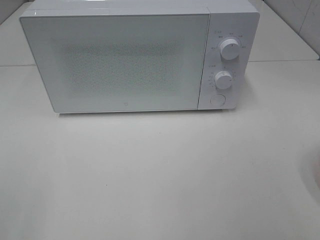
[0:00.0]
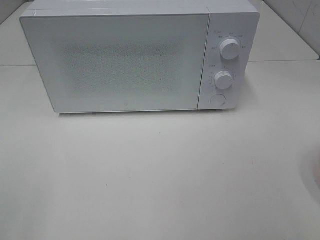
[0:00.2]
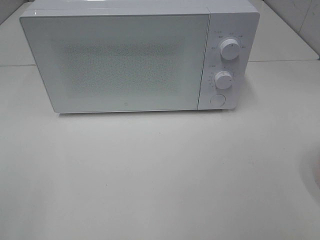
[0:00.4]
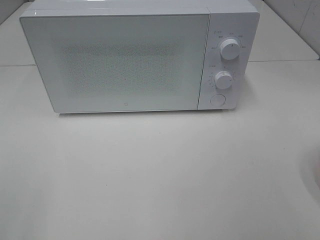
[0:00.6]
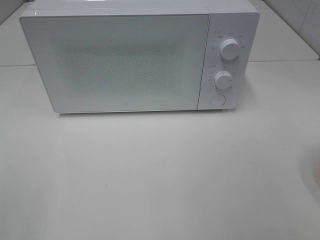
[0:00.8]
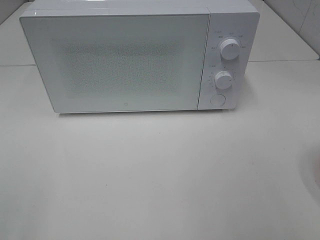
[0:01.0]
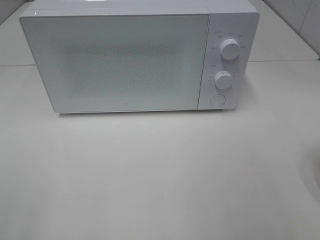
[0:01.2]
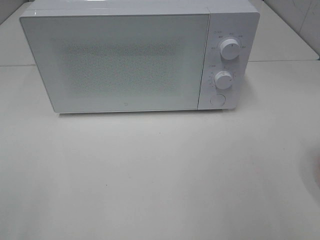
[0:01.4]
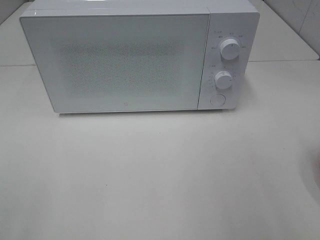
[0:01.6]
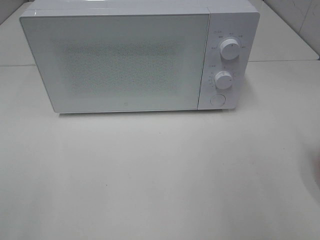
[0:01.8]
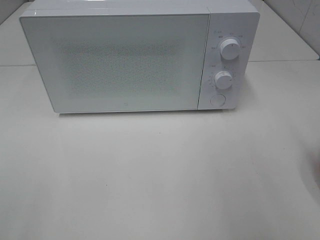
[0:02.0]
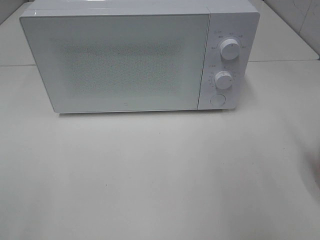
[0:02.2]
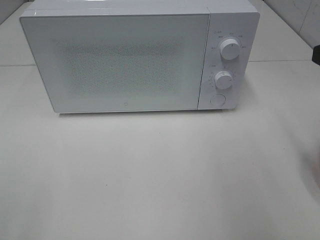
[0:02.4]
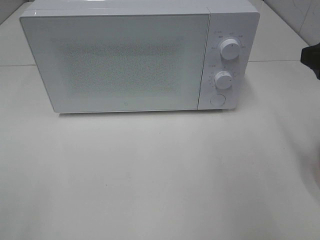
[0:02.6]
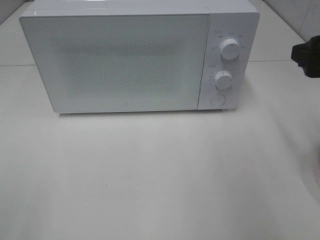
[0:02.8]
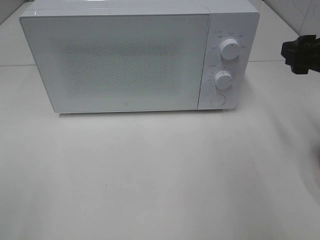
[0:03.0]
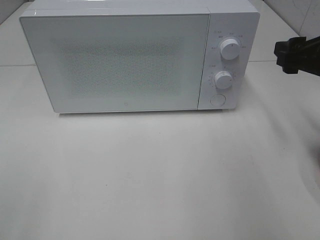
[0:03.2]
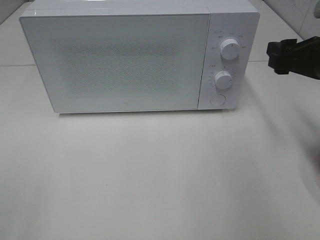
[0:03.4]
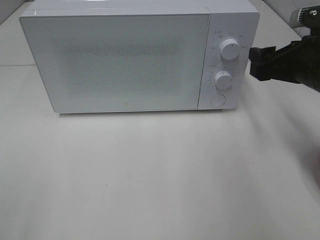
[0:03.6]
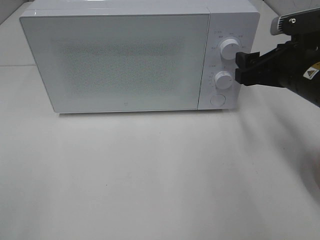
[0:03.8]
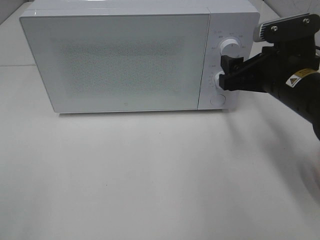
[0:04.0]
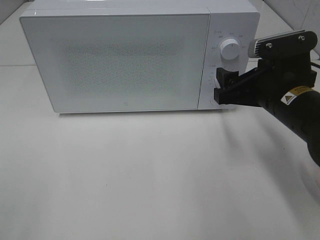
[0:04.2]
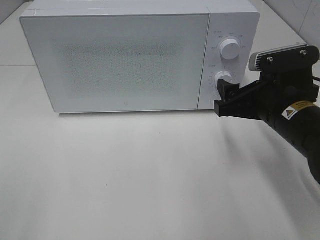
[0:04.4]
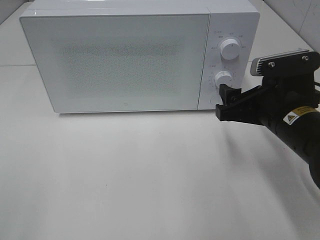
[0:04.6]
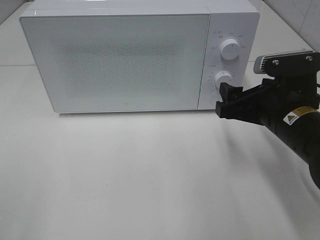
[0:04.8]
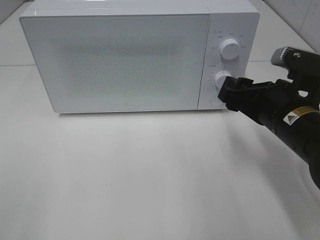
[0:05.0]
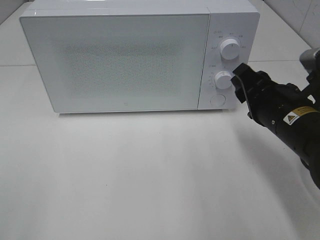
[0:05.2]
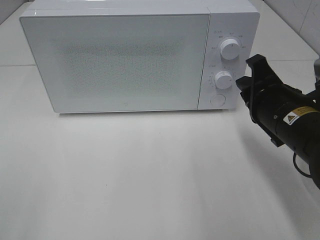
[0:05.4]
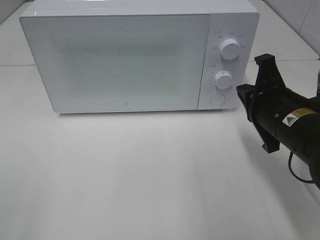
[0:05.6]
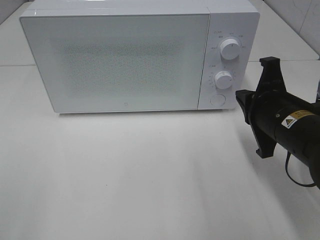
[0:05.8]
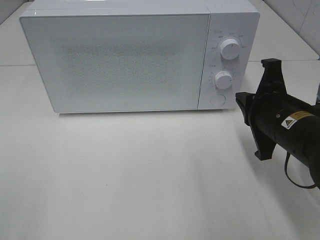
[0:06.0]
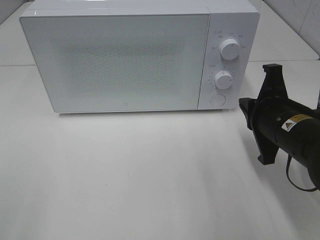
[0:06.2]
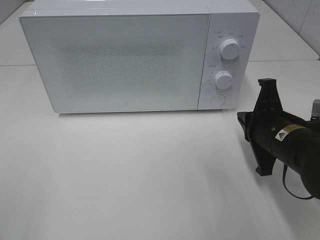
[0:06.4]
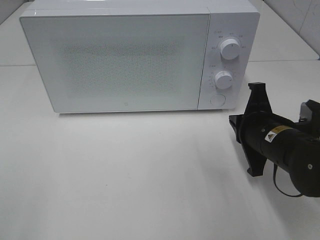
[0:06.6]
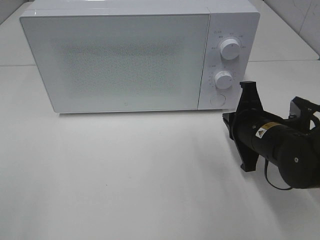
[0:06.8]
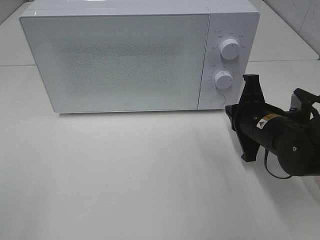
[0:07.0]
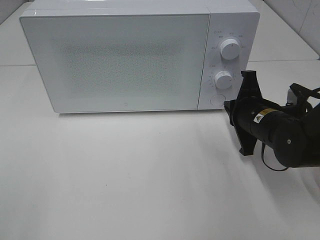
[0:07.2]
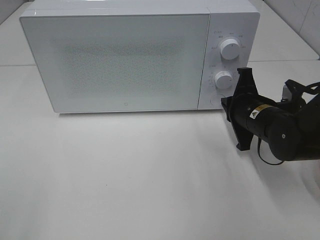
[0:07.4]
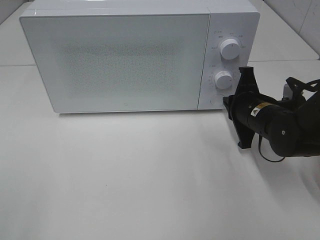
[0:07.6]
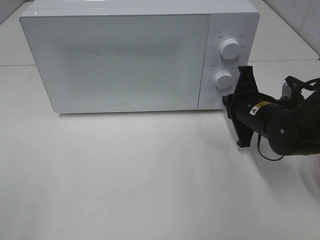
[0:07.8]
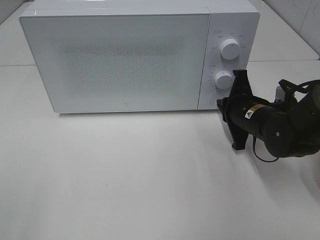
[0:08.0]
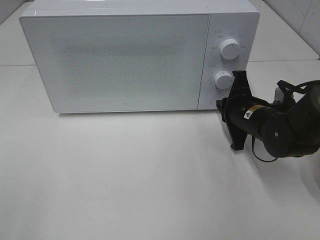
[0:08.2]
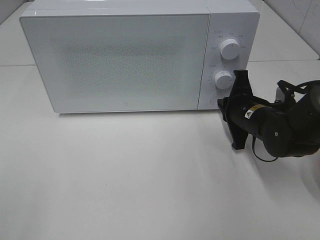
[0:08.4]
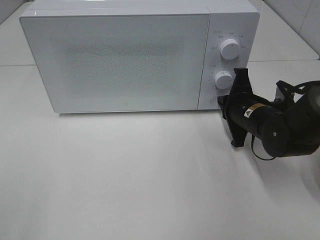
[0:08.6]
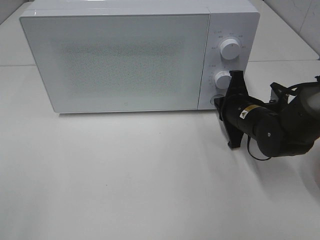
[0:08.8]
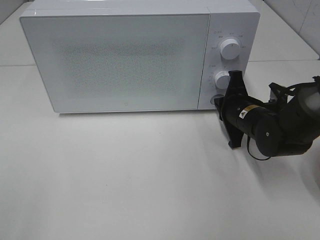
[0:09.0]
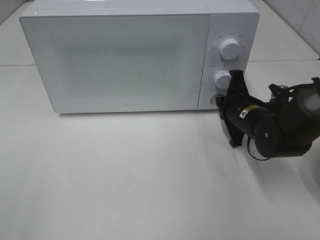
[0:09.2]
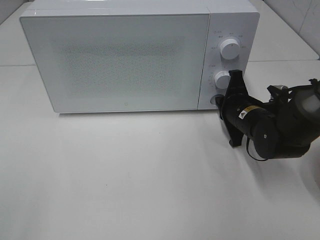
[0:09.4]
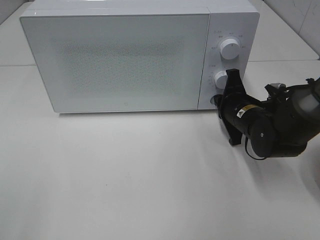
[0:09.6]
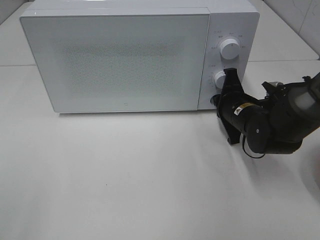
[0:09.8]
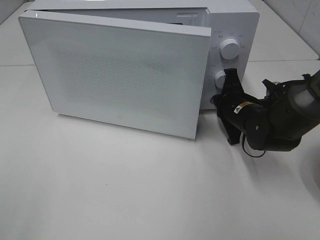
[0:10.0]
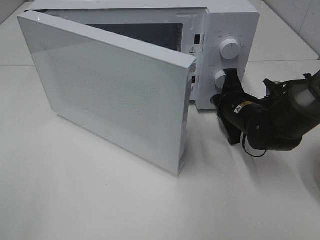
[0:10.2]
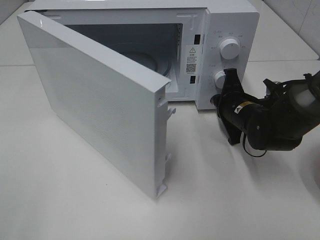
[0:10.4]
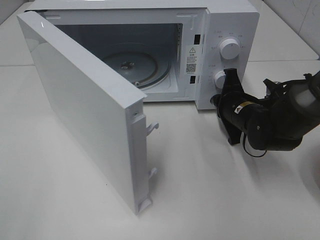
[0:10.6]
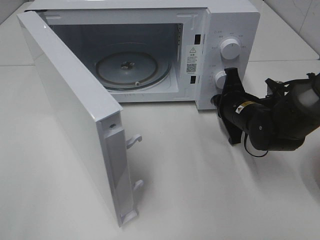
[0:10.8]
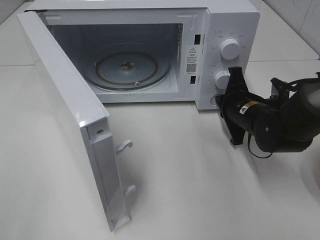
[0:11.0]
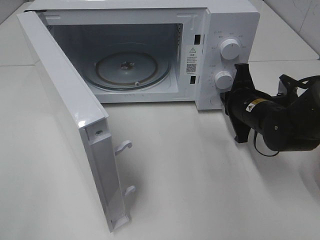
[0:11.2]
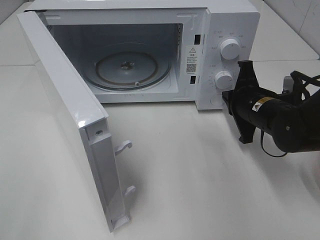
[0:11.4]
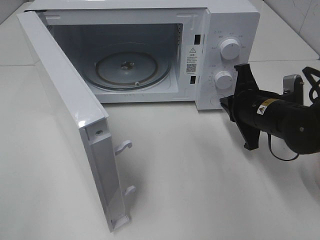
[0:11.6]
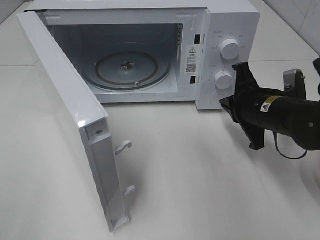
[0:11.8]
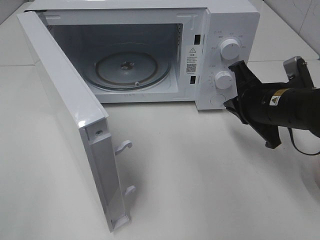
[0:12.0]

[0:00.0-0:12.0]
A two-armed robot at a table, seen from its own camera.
Task of the whole recording: Heat the burger.
Step, 0:00.0 to 0:11.2: Right hand: press the switch.
0:01.6 to 0:03.0: The right gripper shifts about 15 cm forward and downward.
0:03.0 to 0:04.4: The right gripper travels to the left and downward by some 10 cm.
0:04.4 to 0:06.0: The right gripper closes.
0:06.0 to 0:07.6: The right gripper goes about 10 cm forward and downward.
0:07.6 to 0:09.0: The grippers move only a little.
0:10.4 to 0:12.0: The right gripper is displaced upward and backward by approximately 10 cm.

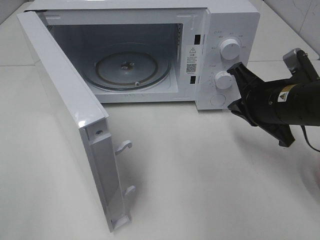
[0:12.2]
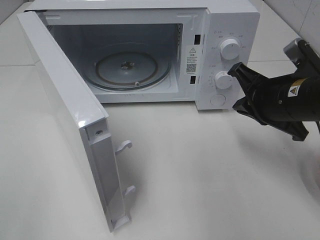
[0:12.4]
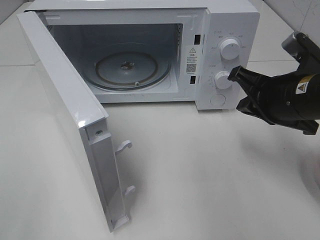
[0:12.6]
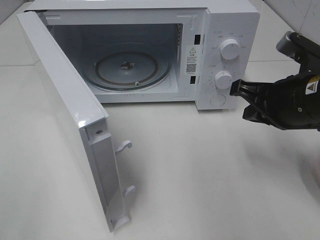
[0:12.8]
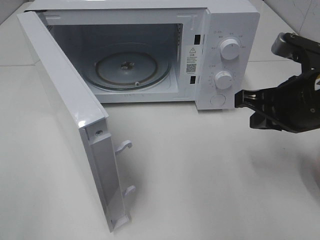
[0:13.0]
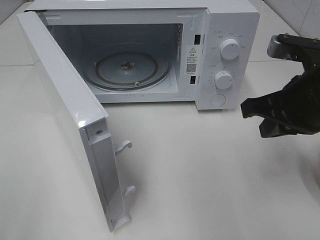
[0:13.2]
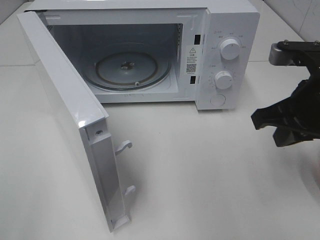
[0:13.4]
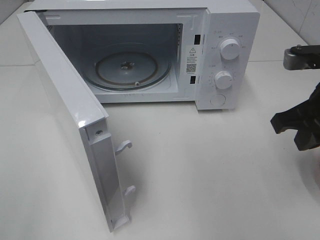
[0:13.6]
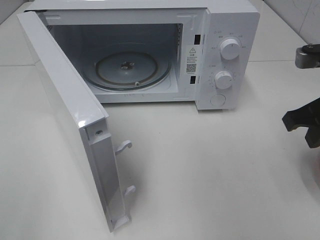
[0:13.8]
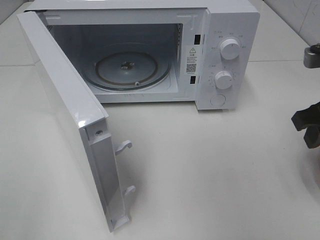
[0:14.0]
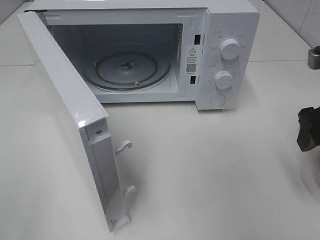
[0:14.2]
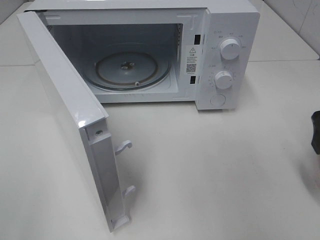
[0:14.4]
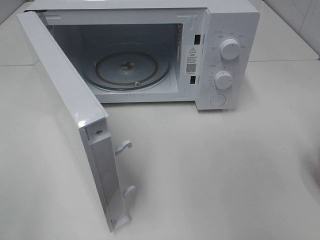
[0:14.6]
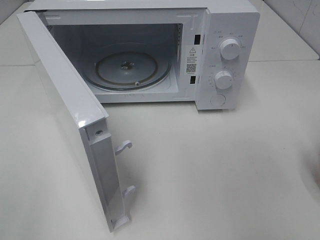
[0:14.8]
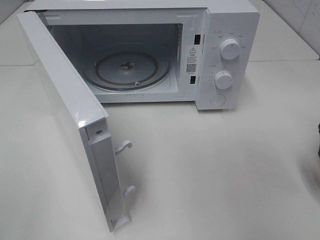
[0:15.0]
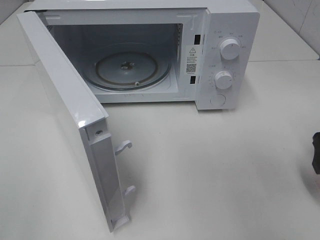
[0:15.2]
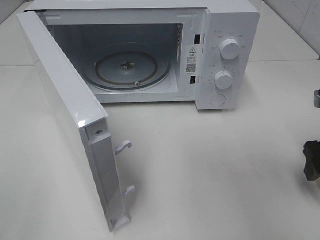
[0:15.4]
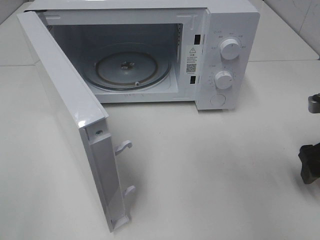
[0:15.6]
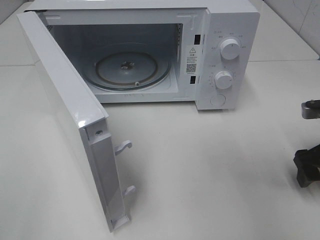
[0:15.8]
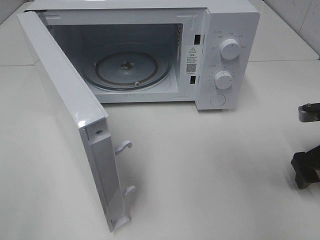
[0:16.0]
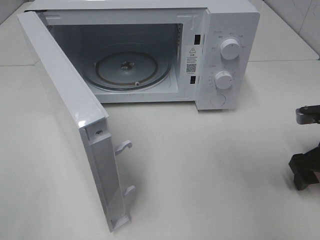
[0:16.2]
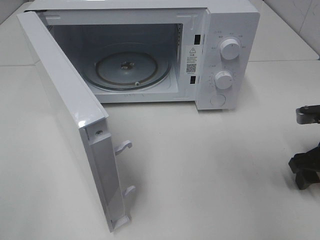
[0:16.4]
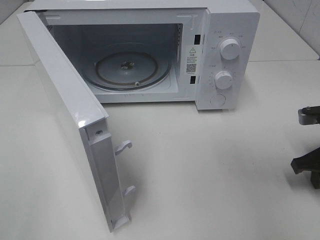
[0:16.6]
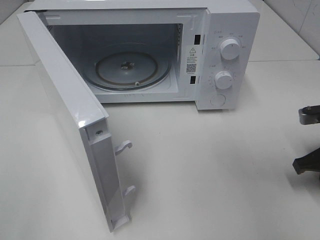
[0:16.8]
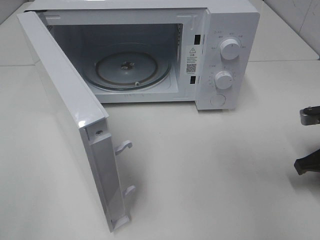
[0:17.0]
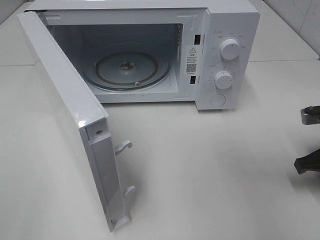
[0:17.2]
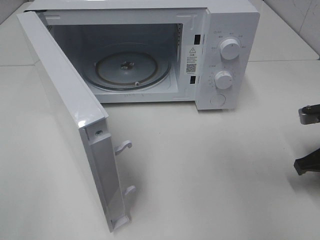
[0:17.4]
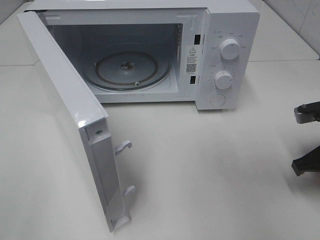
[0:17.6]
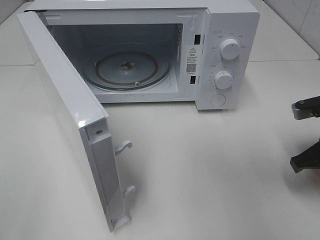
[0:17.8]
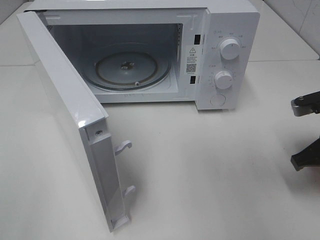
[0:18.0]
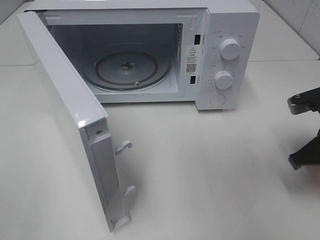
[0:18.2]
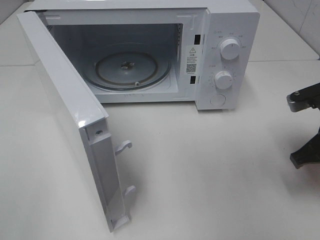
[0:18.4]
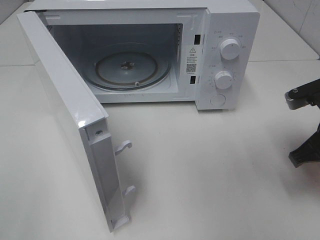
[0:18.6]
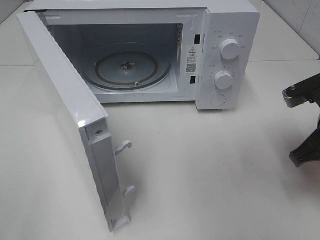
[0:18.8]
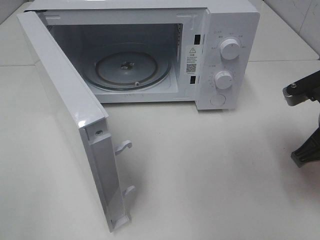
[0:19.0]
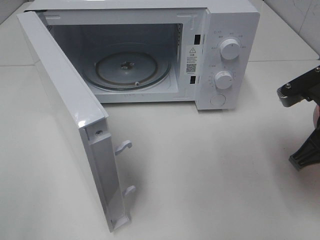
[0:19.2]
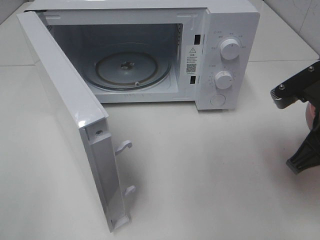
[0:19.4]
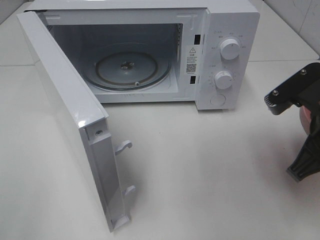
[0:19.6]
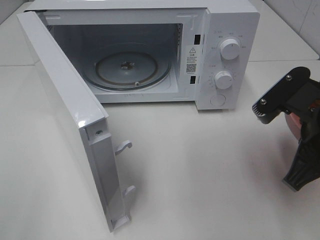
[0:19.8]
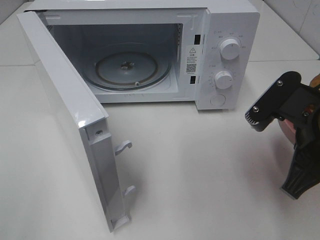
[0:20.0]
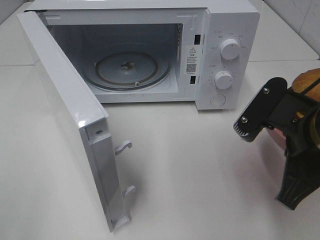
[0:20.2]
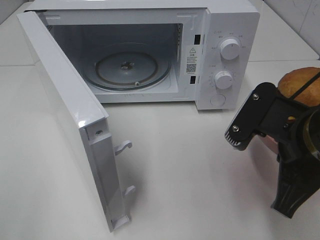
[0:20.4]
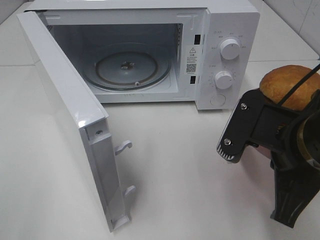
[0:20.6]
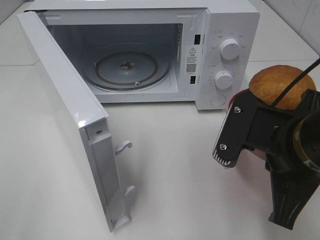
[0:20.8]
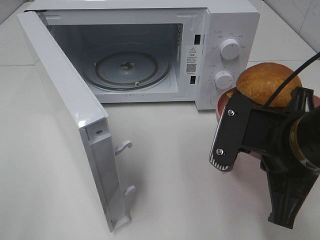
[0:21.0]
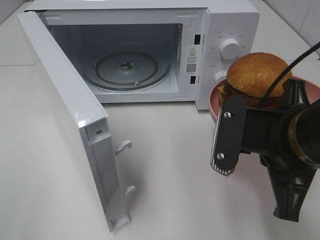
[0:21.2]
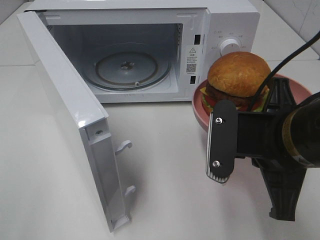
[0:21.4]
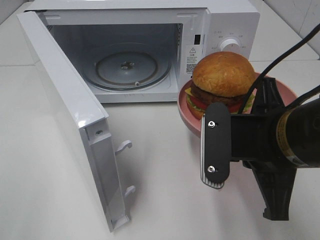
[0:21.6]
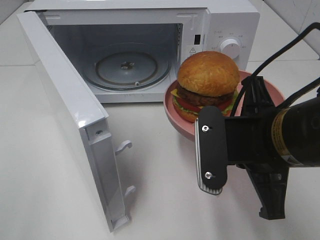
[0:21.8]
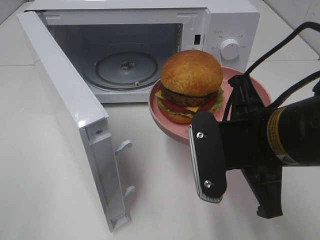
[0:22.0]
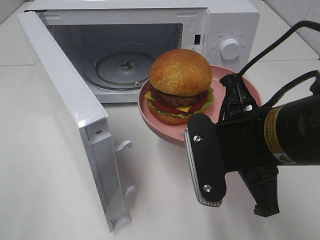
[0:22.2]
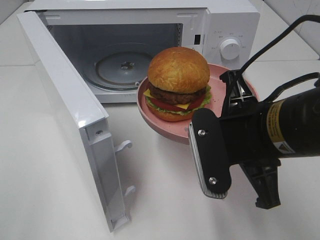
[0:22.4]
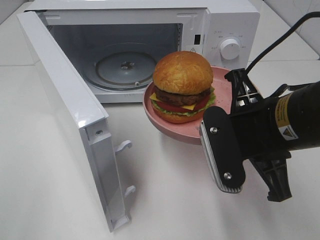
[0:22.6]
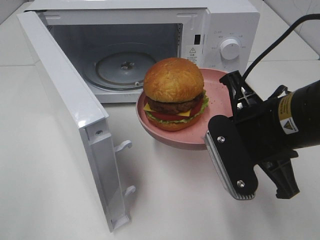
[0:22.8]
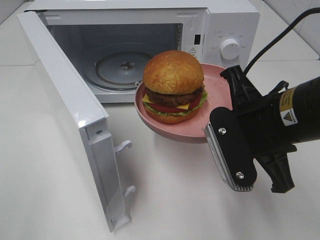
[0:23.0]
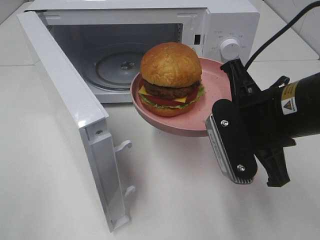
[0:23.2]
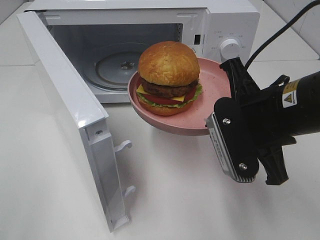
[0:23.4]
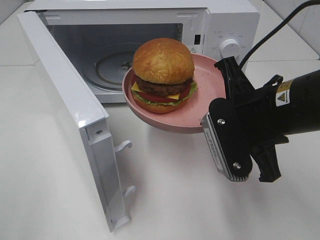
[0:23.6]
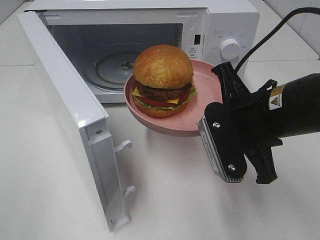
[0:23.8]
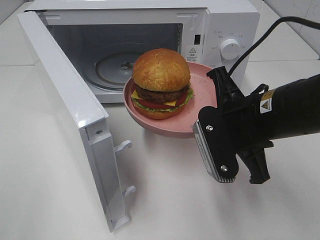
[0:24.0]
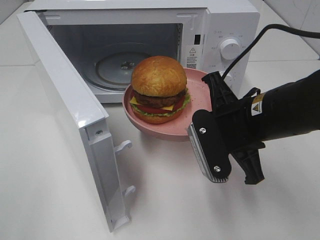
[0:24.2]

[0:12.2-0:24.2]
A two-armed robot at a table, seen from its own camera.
Task of the whole recording: Heat the burger.
Step, 0:12.2 to 0:17.4: Right hand: grab the plate with the hamburger.
0:12.2 to 0:13.8: The right gripper moves upward and to the right, some 10 cm.
0:13.8 to 0:15.2: The right gripper heads to the right, covering about 5 cm, and opens up.
0:15.2 to 0:16.6: The right gripper moves downward, roughly 5 cm, and closes up.
0:16.6 to 0:18.2: The right gripper ends up approximately 5 cm from where it was, and closes.
0:18.2 to 0:19.8: The right gripper heads to the left, upward and backward, covering some 10 cm.
0:19.8 to 0:21.2: The right gripper heads to the left, covering roughly 5 cm.
0:22.6 to 0:24.2: The right gripper ends up approximately 5 cm from where it was.
